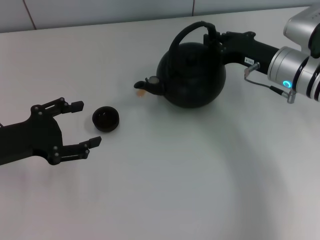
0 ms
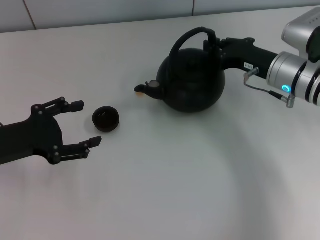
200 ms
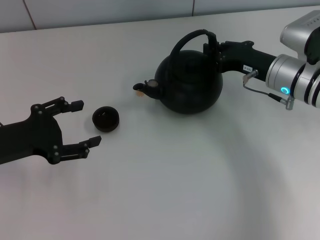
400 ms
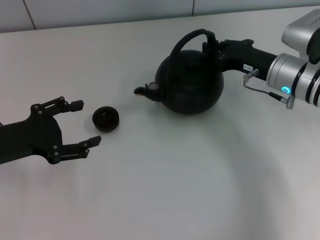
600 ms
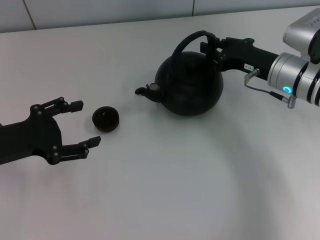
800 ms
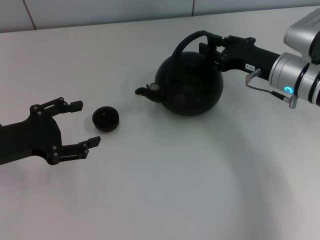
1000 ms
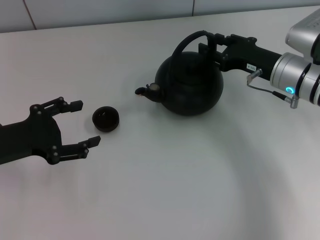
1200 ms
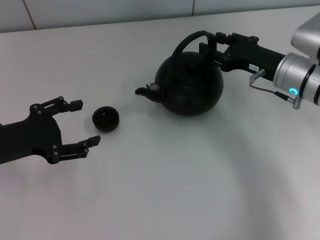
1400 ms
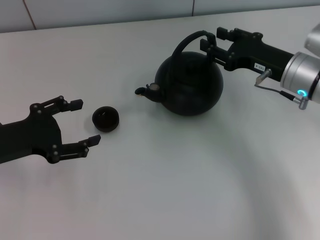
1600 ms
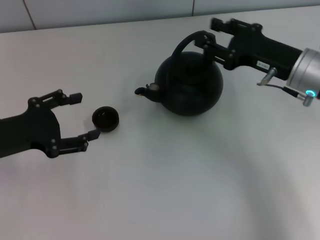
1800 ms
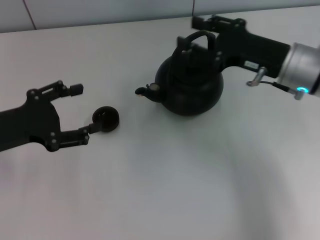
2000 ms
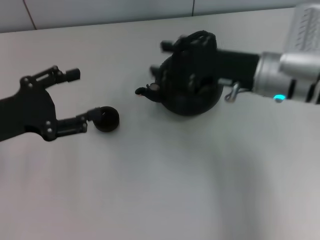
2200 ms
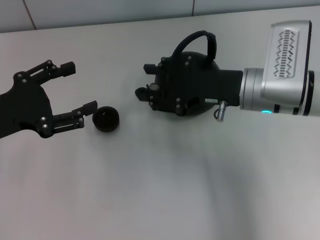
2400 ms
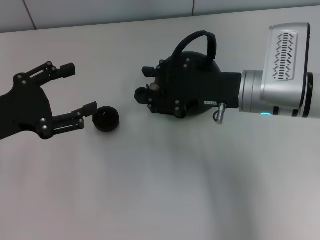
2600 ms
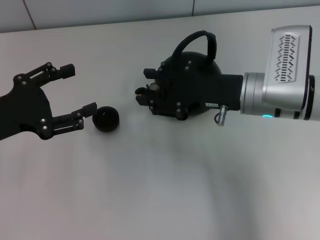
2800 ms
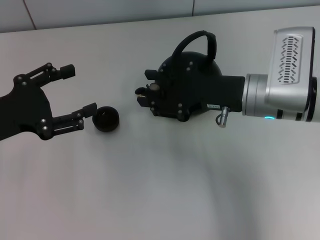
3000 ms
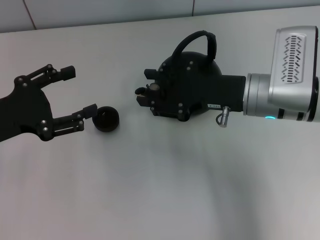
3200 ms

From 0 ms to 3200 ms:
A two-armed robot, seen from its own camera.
Task of the whole recording: Grasp the handle of the teapot with one hand and pour tea into the teacup.
Step, from 0 ms to 1600 ms: Put down the teapot with the right gripper.
From 0 ms to 1600 ms: The right gripper opens its fingers.
From 1600 ms to 3200 ms: The right gripper is displaced to the left by approximately 5 cm.

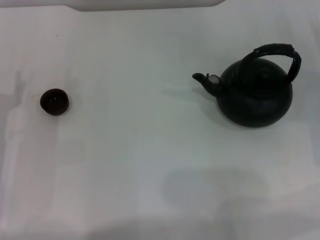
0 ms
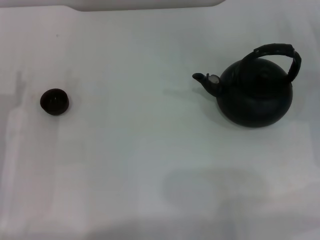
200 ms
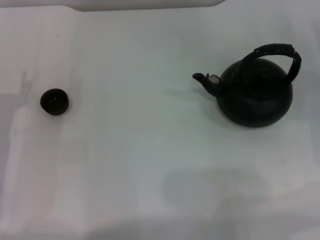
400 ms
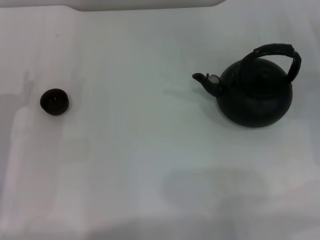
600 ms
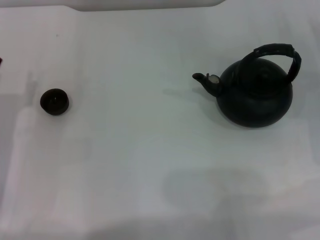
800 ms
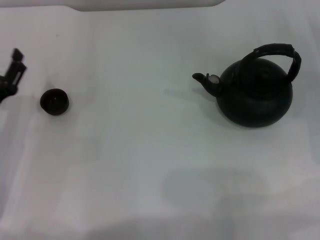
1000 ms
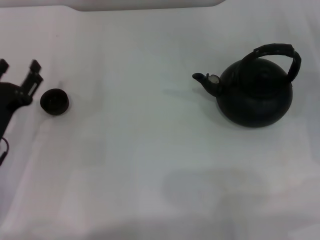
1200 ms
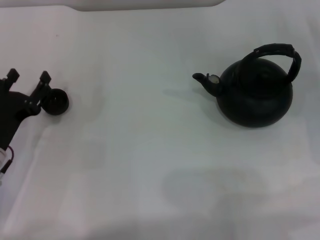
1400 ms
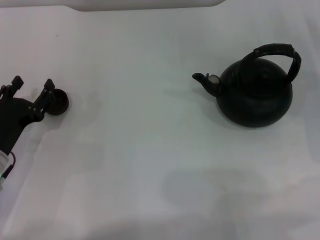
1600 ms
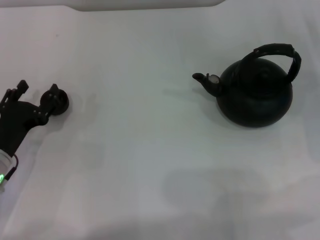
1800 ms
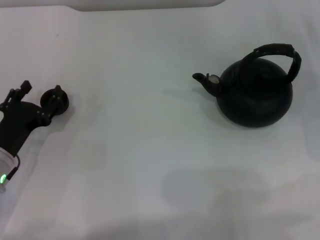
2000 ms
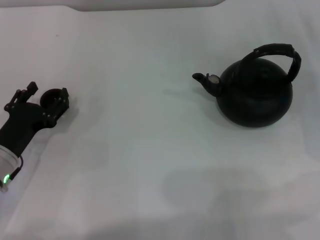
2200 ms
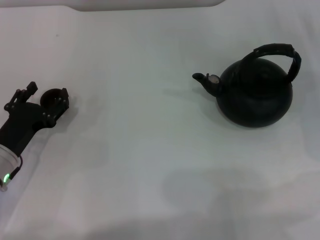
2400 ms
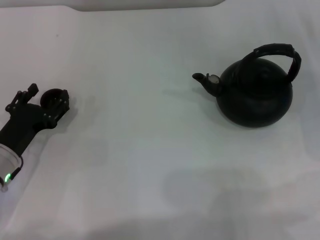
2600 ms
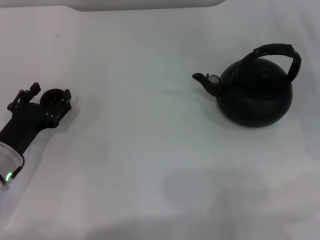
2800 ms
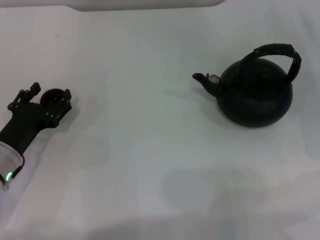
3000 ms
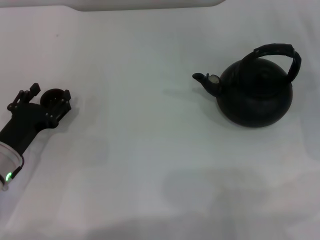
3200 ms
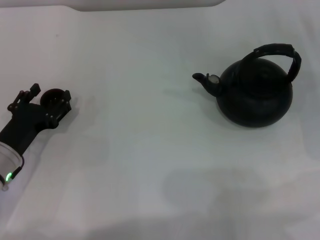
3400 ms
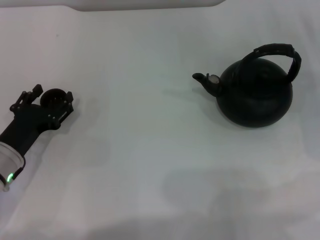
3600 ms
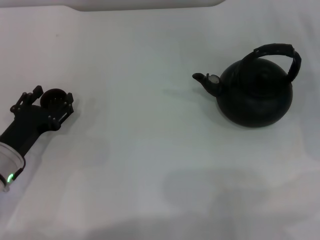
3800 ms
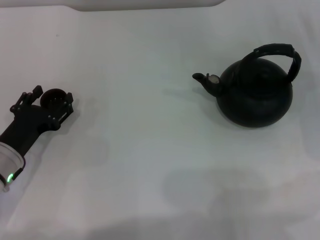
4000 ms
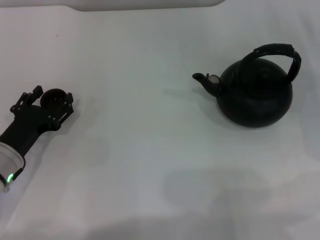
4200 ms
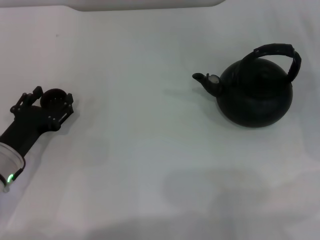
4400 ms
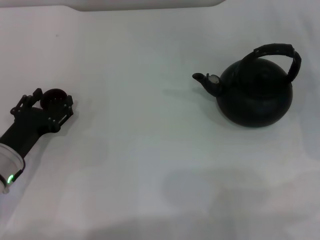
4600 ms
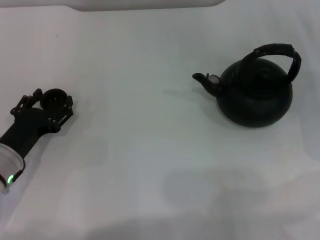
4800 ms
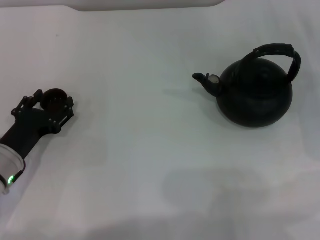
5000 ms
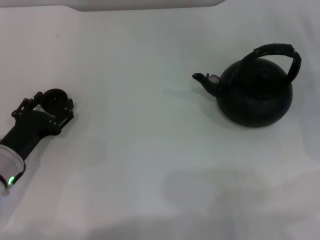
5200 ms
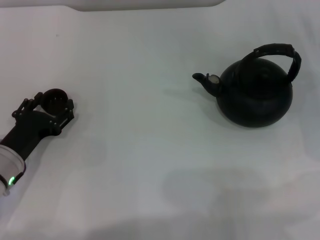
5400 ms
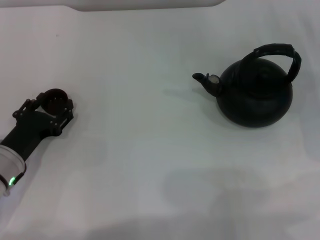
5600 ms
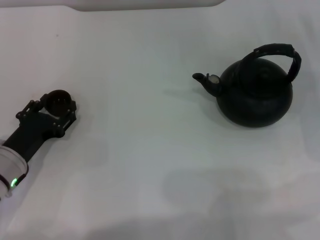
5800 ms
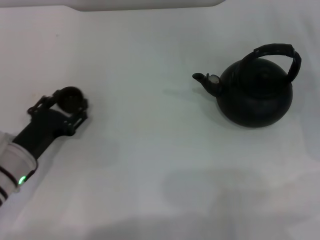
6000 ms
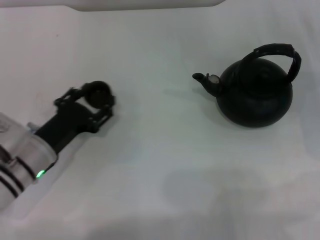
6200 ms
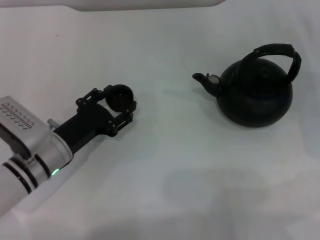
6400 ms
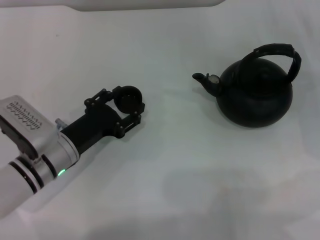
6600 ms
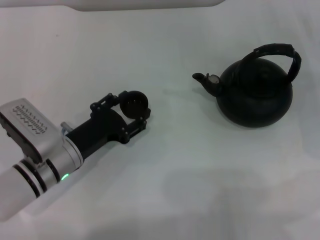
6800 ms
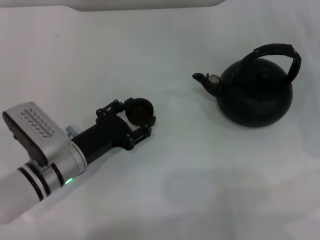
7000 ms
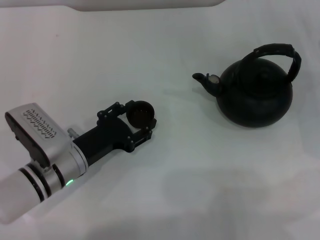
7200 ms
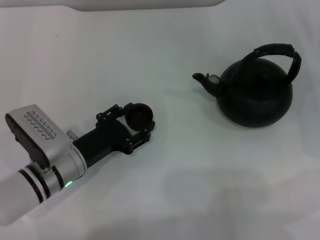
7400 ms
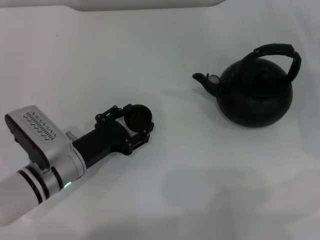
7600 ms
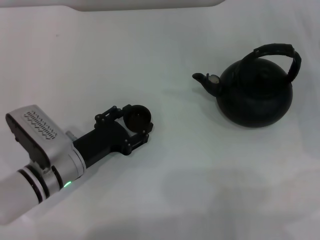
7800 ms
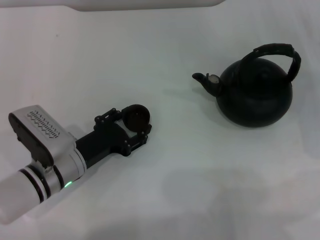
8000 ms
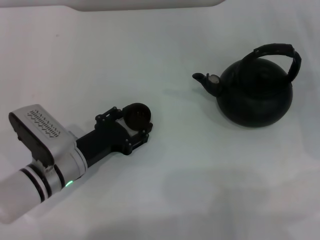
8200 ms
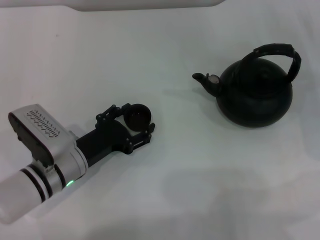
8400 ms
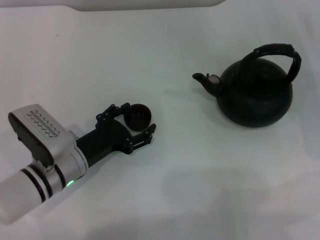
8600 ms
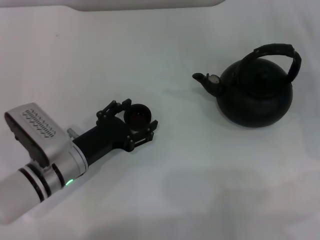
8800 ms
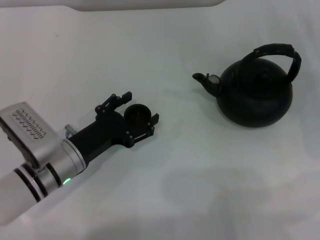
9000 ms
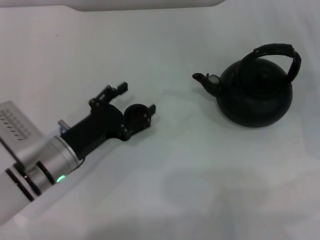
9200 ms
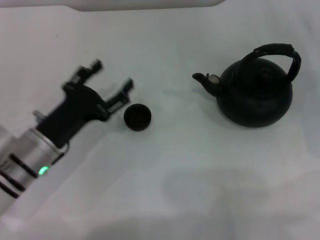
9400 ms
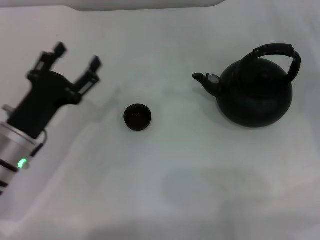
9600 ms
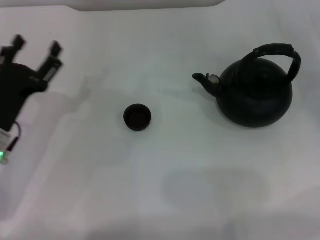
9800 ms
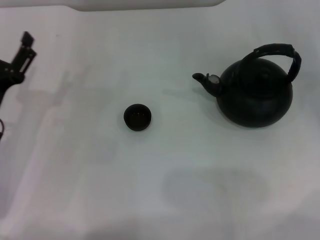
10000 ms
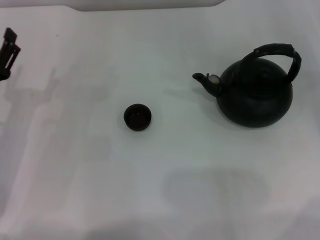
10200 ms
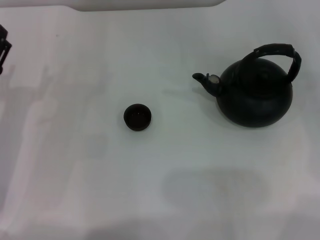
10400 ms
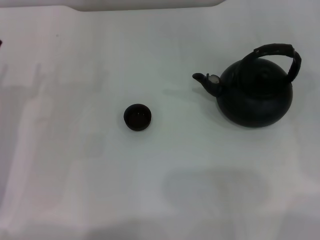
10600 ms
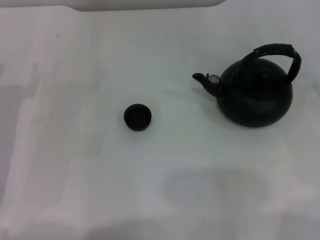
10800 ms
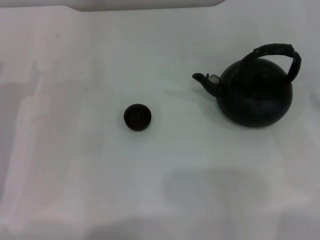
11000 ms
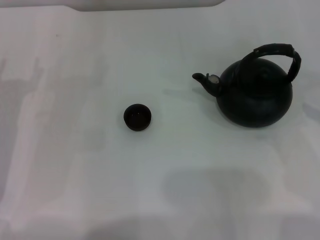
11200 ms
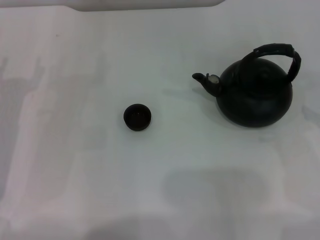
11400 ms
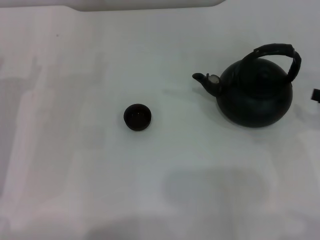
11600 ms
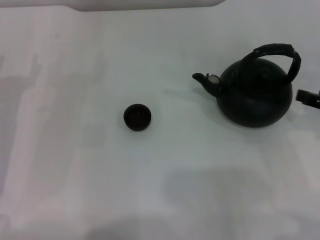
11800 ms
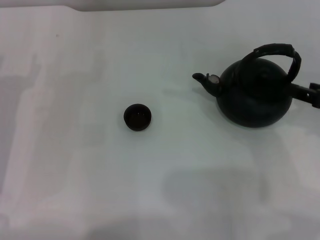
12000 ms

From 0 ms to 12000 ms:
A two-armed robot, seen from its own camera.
Task of the whole recording: Grasp the handle of the teapot with one hand and pour tea into the teacup.
Step, from 0 ms to 5800 ms: Pick up the teacup with the left gripper.
Step, from 6000 ms to 9400 ms: Place the teacup in the center of view with the left gripper.
From 1600 ms to 3000 ms: There are only small adjustments of the grippers.
From 3000 ms to 4400 ms: The two grippers keep their place.
From 4400 ms to 6000 ms: The left gripper closes its fingers.
From 6000 ms to 7600 ms: The left gripper is displaced to the right by about 5 cm.
From 7600 ms to 9000 ms: The left gripper opens.
From 9000 ms to 10400 ms: The right gripper goes about 10 cm upward and to the right, while the left gripper heads to the left, covering about 10 cm.
From 10400 ms to 12000 ms: The right gripper travels to the left and backward by some 10 cm.

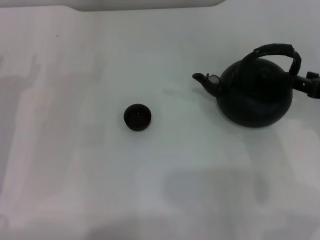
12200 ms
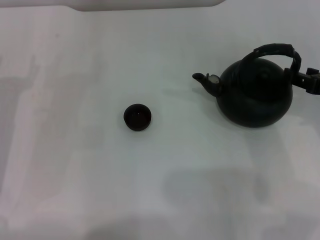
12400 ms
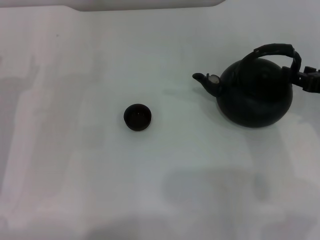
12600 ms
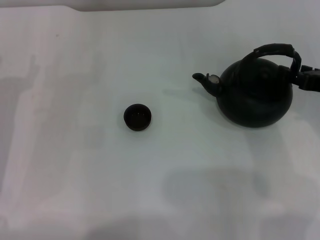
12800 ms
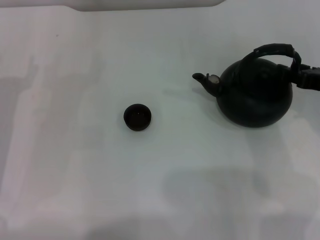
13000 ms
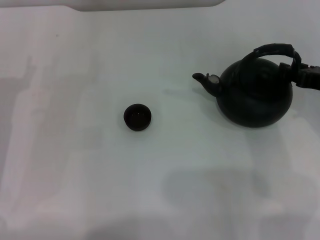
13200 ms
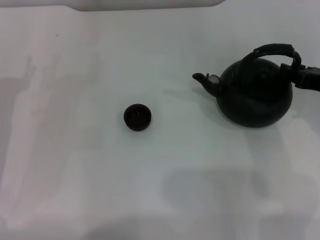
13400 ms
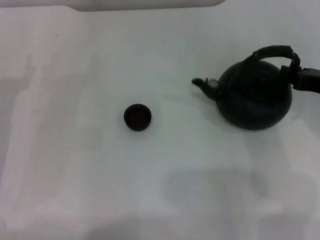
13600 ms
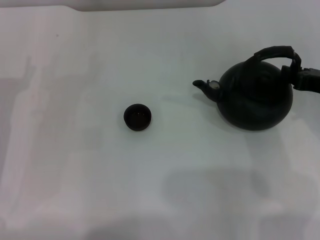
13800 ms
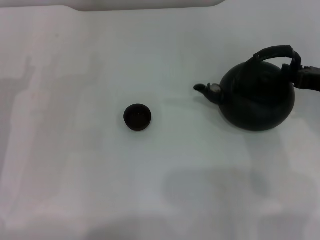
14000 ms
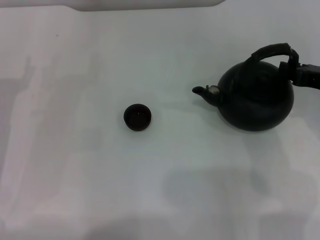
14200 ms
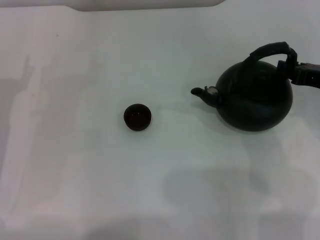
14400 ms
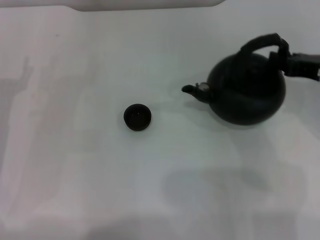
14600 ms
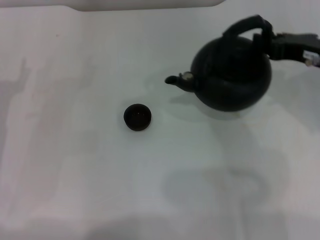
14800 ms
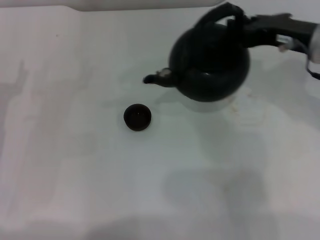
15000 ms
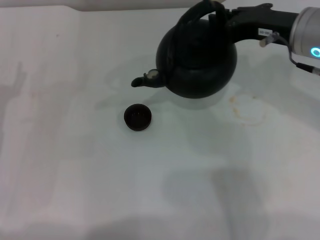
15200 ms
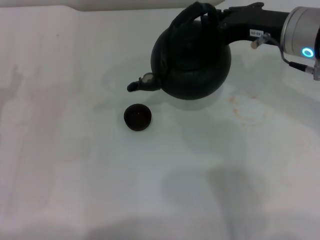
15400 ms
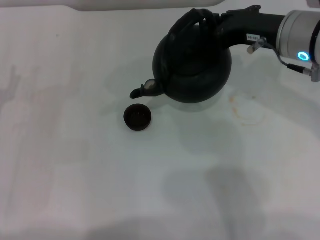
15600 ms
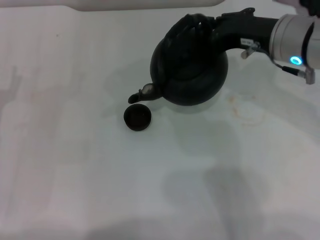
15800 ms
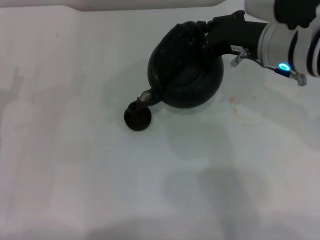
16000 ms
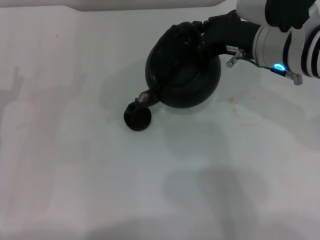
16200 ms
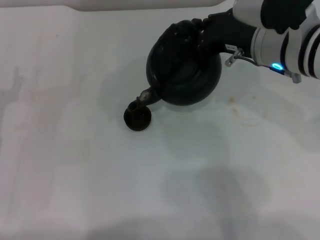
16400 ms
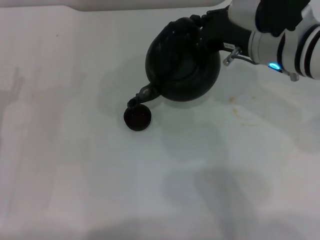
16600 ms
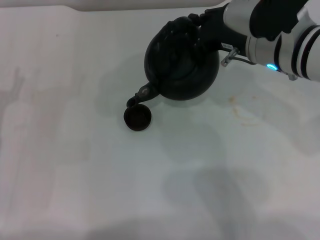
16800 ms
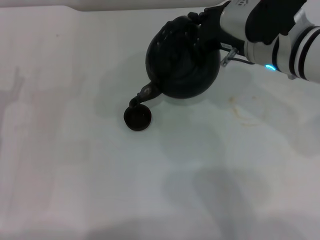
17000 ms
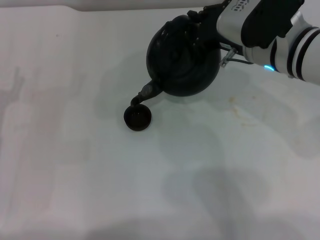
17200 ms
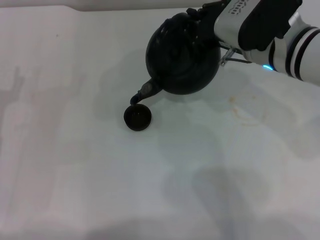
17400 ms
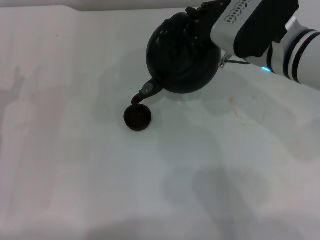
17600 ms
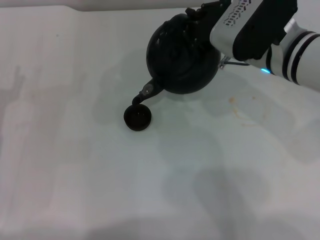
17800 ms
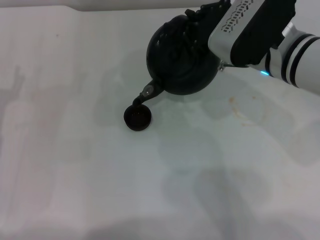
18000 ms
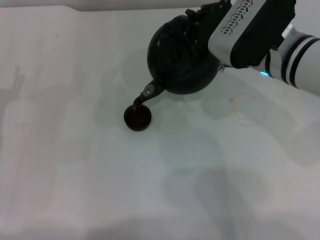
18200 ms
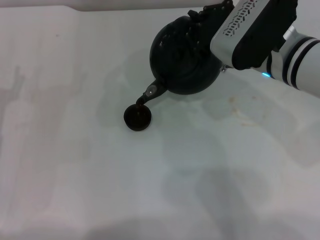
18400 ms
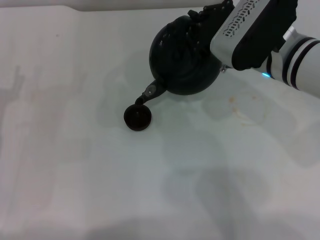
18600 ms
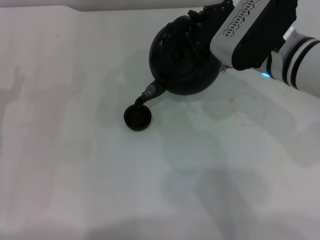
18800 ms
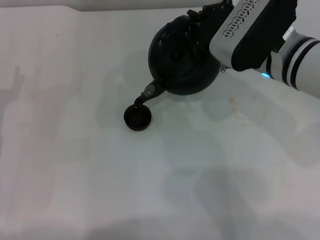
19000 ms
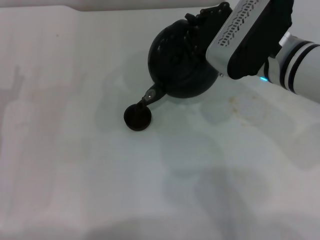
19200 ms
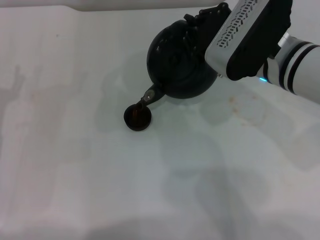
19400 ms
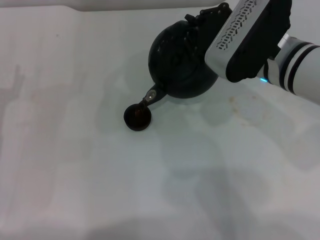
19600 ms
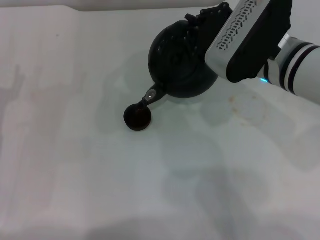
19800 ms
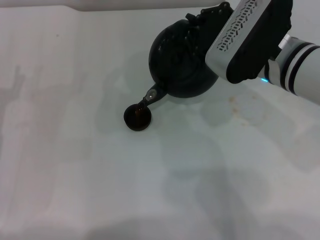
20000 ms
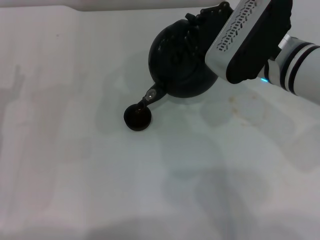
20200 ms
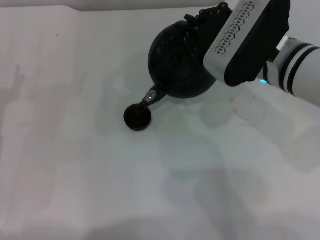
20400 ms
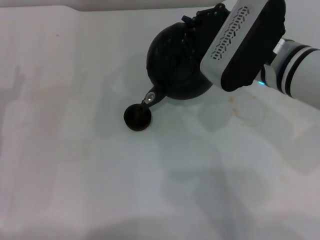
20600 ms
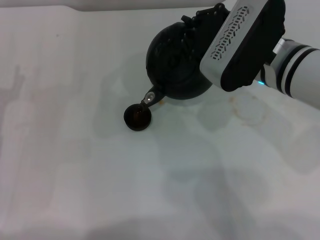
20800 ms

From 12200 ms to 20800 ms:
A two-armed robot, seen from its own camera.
Task of the whole recording: Grasp the handle of the teapot with one hand and pour tea into the teacup.
Step, from 12200 ms to 14600 ms: Pick up the teapot with the right gripper.
From 12200 ms to 13600 ms: The right gripper closes its fingers.
From 13600 ms to 15000 ms: The right gripper is displaced to the left and upward by some 10 cm, and closes.
From 15000 ms to 16600 ms: The right gripper heads to the left, covering roughly 5 cm.
From 16600 ms to 18000 ms: There are only small adjustments of the grippers.
From 18000 ms to 19400 ms: The two grippers keep their place.
From 19400 ms to 20800 ms: Both grippers stay about where they are.
